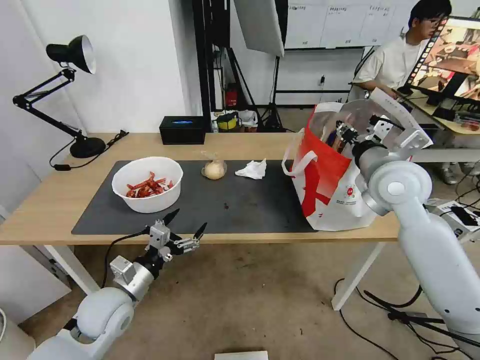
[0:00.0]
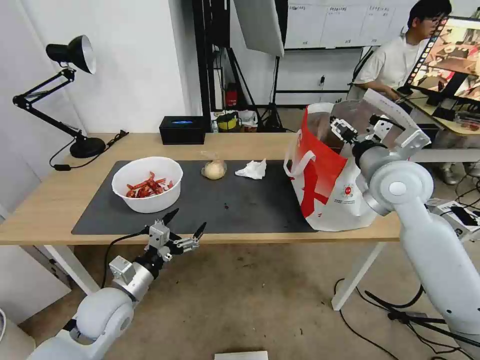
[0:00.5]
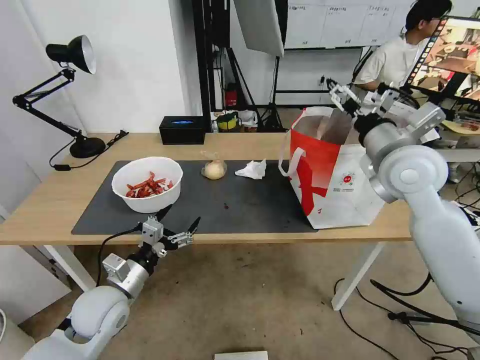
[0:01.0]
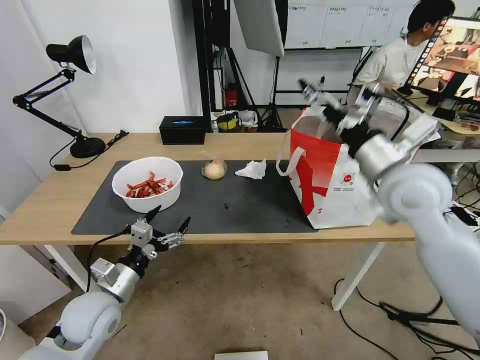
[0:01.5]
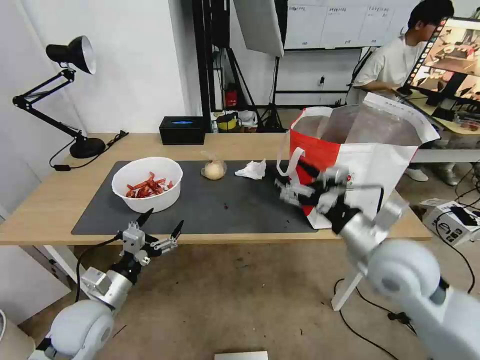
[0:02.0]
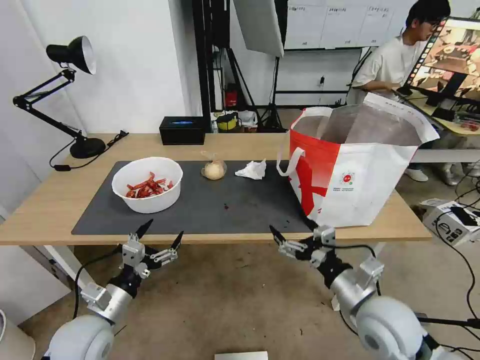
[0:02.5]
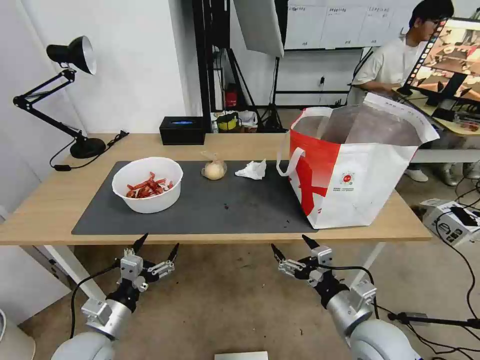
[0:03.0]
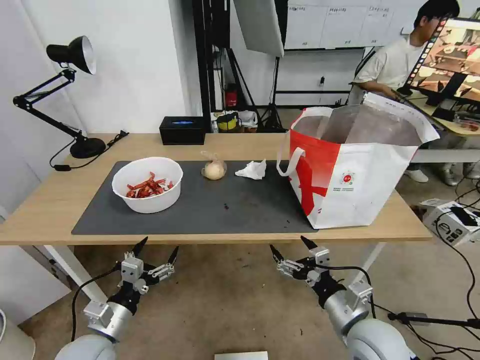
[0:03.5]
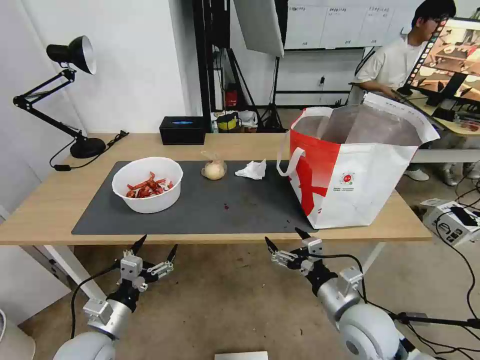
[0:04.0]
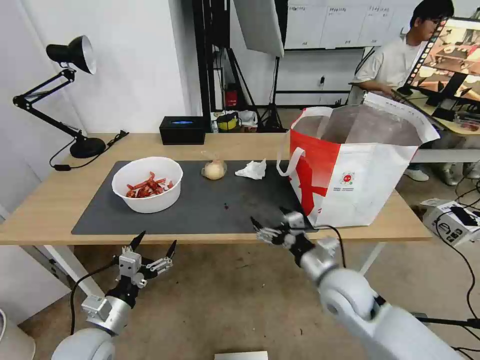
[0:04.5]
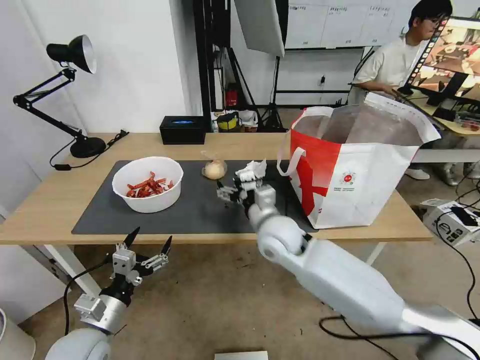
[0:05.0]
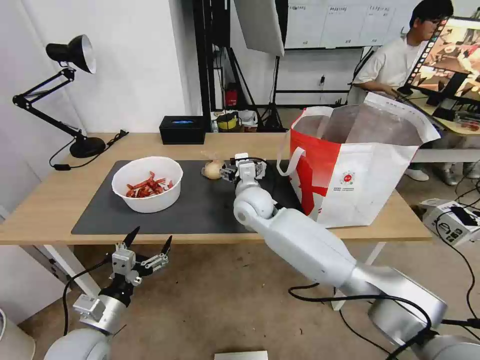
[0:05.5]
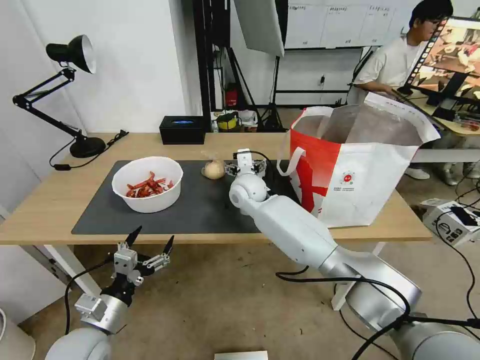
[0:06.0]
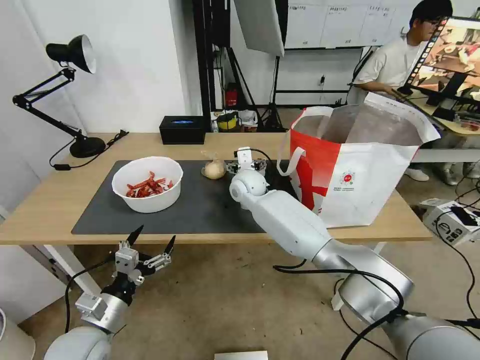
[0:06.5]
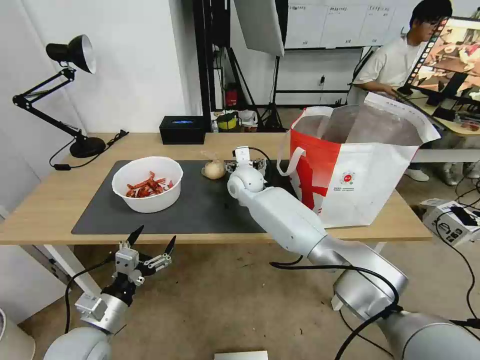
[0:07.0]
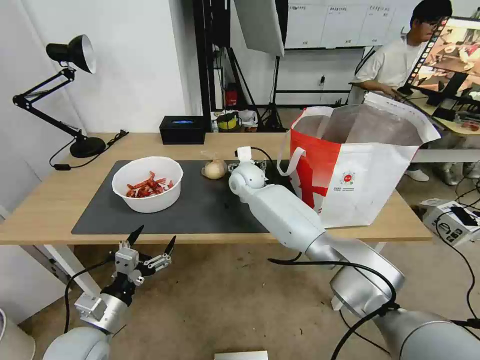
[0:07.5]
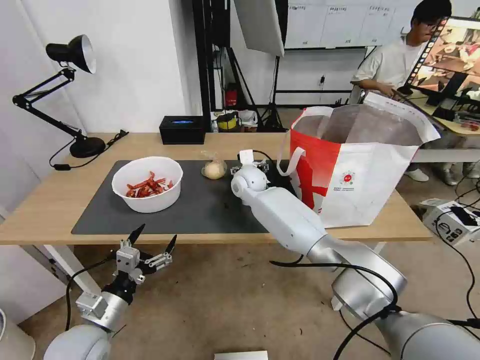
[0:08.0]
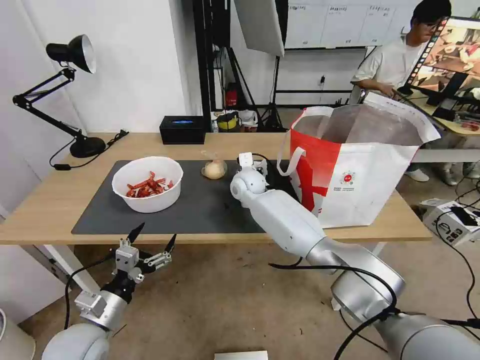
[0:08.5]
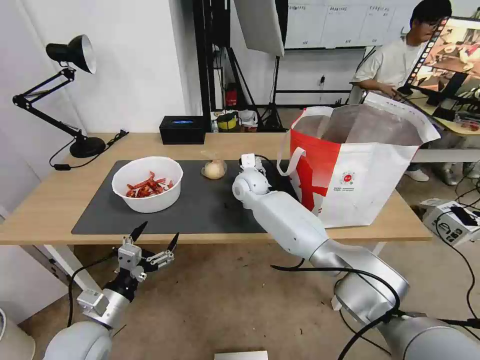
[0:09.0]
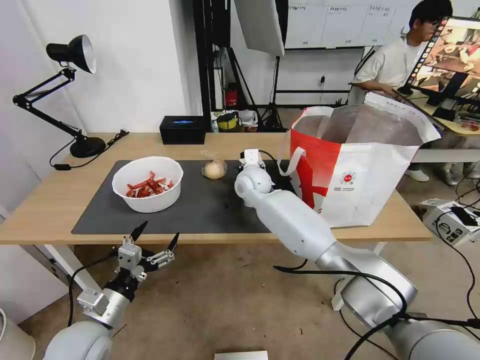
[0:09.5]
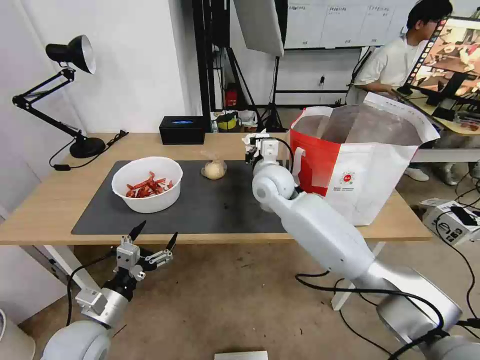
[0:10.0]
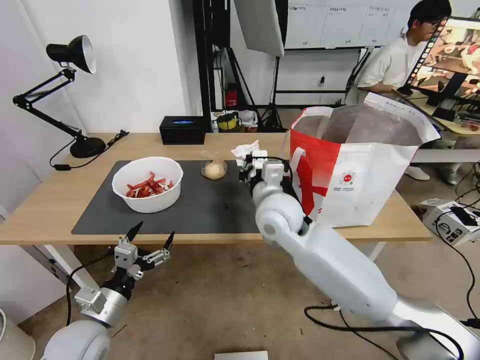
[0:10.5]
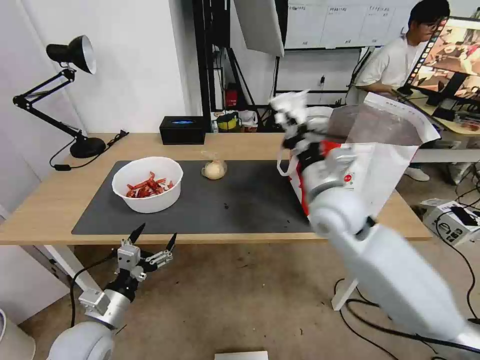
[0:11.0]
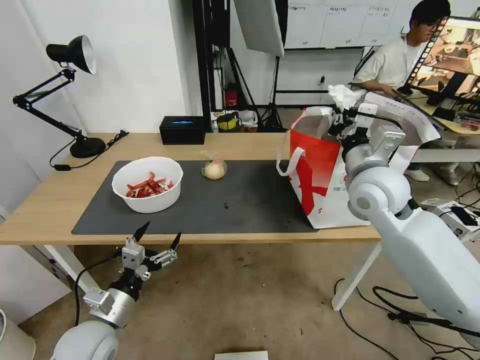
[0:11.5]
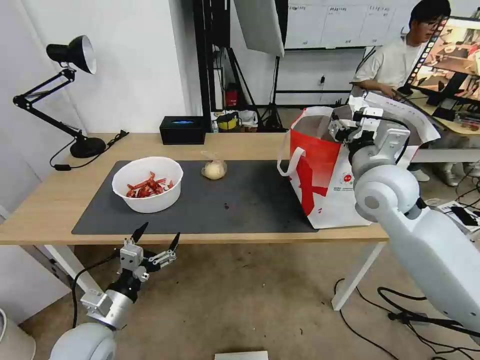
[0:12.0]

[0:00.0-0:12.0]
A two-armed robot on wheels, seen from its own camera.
Task of the whole recording: Pick up the trash from the table and place it into the takeout bag.
0:00.0 to 0:02.0: The right gripper shifts about 15 cm backward and downward, and opens its fingers.
0:02.0 to 0:04.0: The left gripper shifts by roughly 5 cm. Meanwhile the right gripper shifts about 15 cm downward and backward.
0:04.0 to 0:06.0: The right gripper goes about 40 cm forward and to the left.
0:06.0 to 0:08.0: The right gripper moves forward, roughly 5 cm.
0:08.0 to 0:10.0: The right gripper is displaced backward and upward by about 10 cm, and closes up.
0:10.0 to 0:12.0: The right gripper goes about 20 cm to the right, backward and upward, and opens.

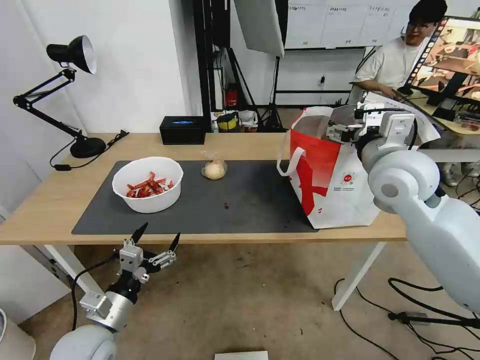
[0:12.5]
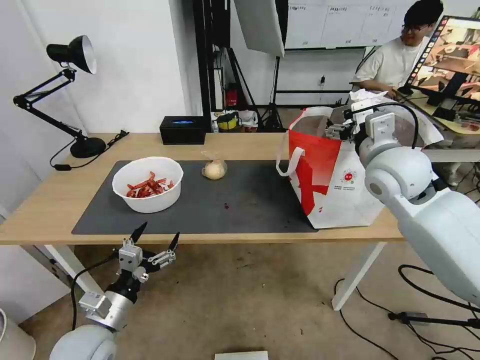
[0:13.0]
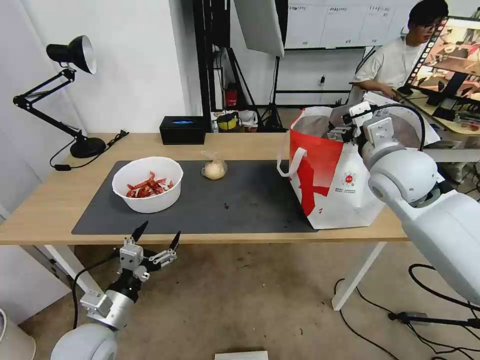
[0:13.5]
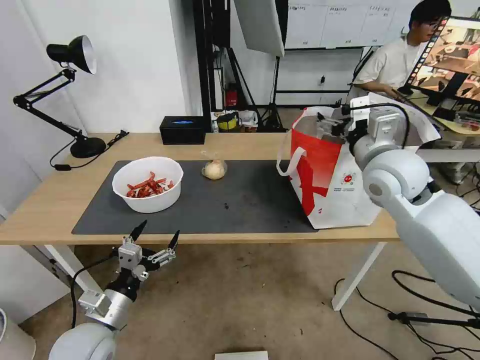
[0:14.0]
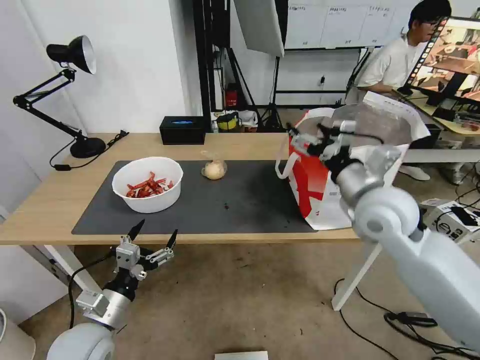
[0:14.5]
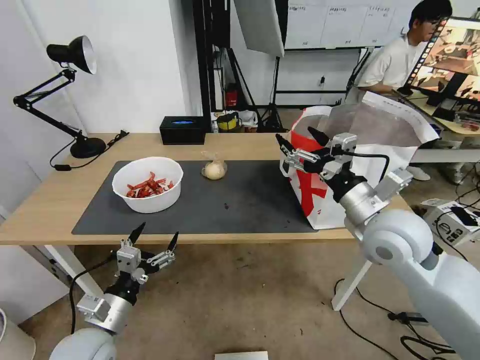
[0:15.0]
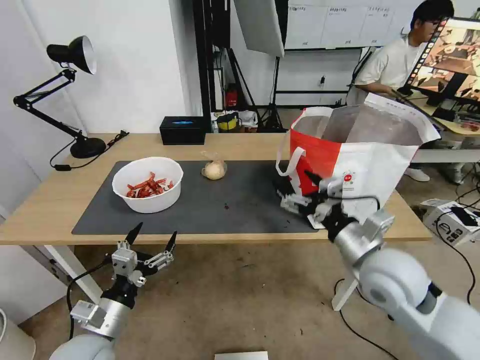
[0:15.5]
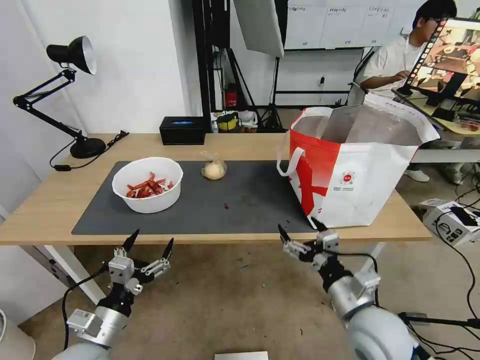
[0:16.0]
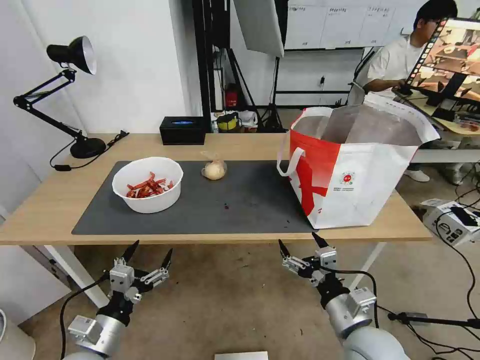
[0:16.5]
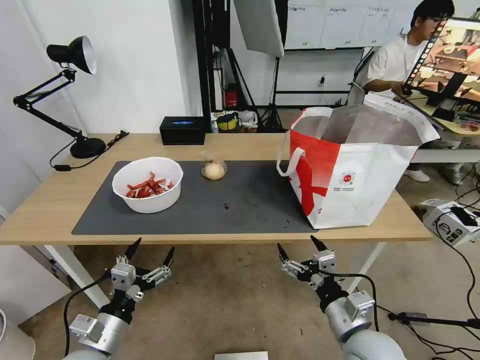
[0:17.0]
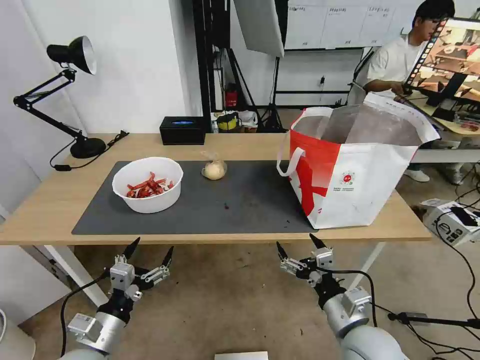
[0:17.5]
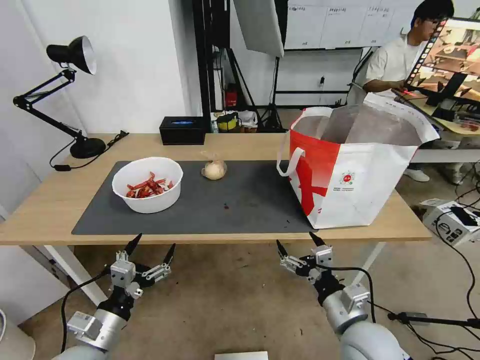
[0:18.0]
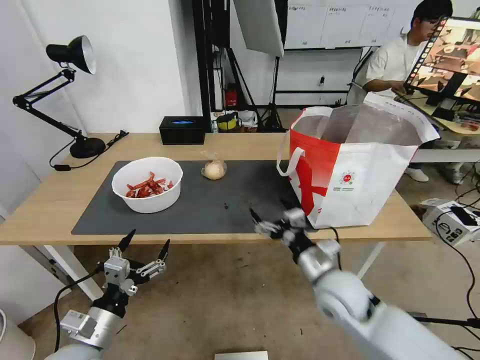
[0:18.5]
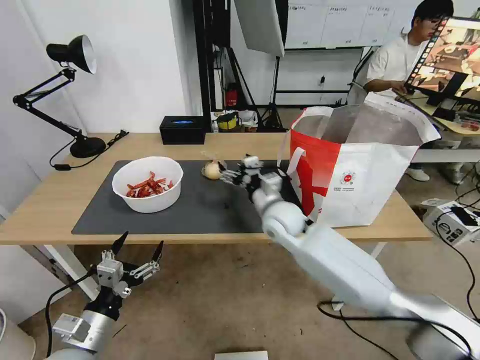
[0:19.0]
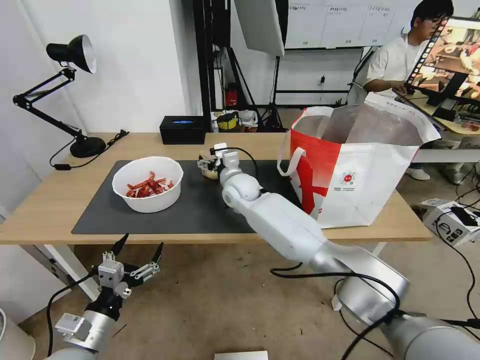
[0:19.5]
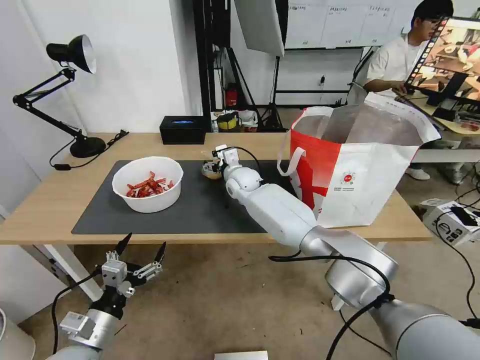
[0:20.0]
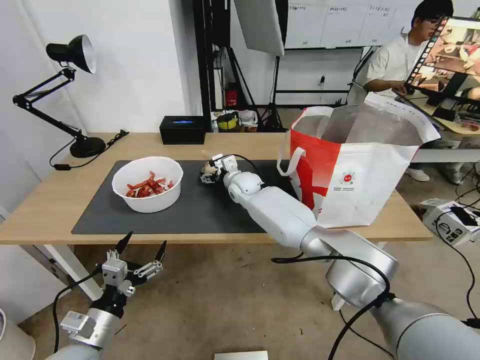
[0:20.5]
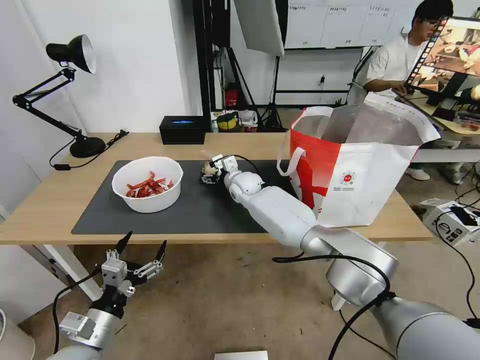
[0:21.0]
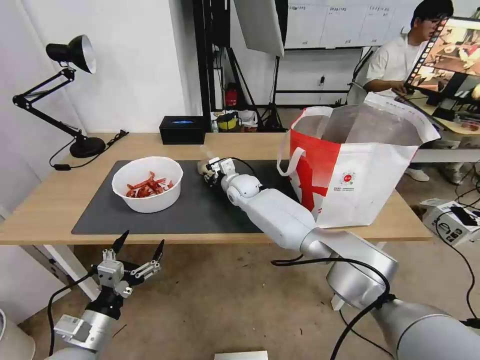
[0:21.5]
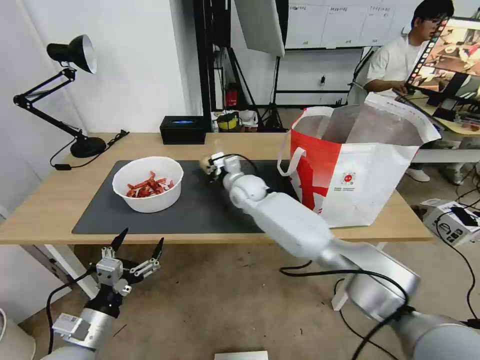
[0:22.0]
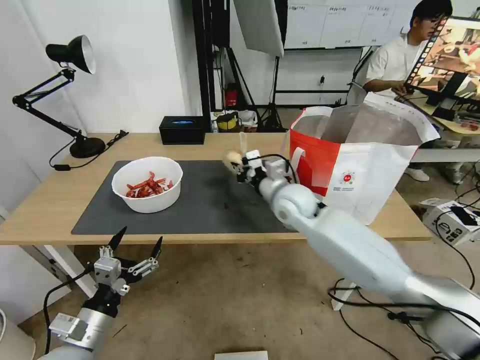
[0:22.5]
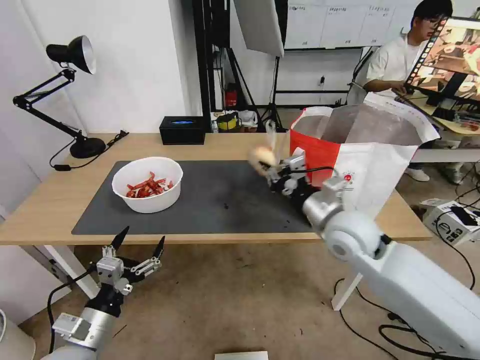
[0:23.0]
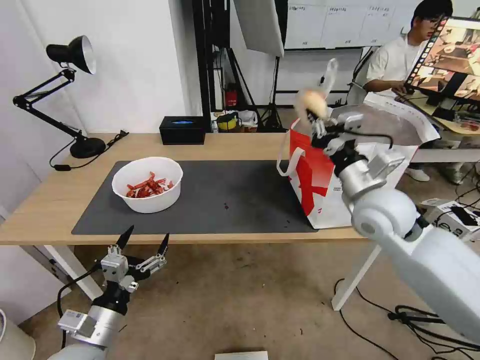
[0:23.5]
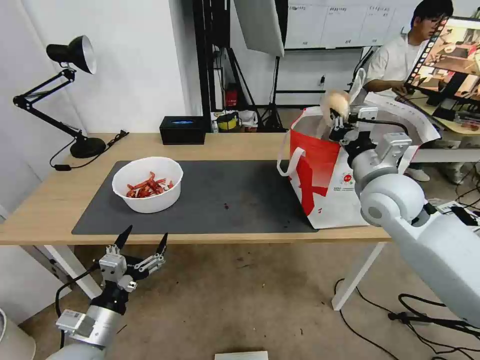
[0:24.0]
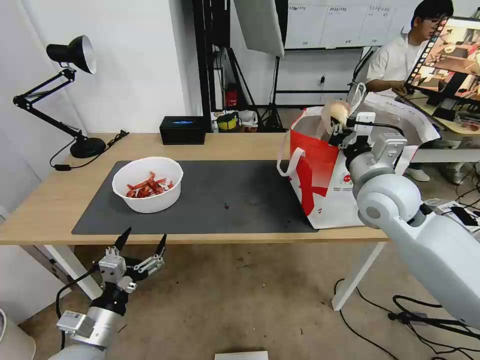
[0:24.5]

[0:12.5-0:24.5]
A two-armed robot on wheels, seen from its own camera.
Task of the whole recording: Pick up the trash from the table and place it into the takeout bag.
0:12.5 to 0:14.5: The right gripper is displaced downward by some 5 cm.
0:14.5 to 0:16.5: The right gripper is displaced backward and downward by about 25 cm.
0:16.5 to 0:18.5: The right gripper heads forward, covering some 10 cm.
0:18.5 to 0:20.5: The right gripper travels forward and to the left by approximately 40 cm.
0:20.5 to 0:22.5: The right gripper heads backward, to the right and upward, covering some 20 cm, and closes.
0:22.5 to 0:24.5: The right gripper moves to the right, upward and backward, about 20 cm.

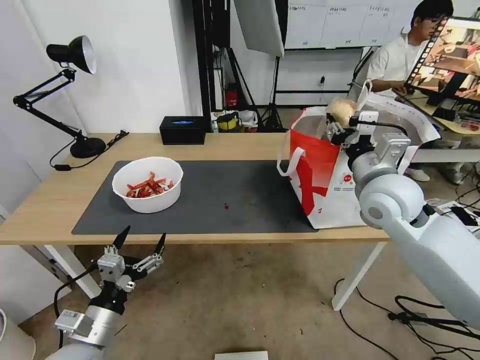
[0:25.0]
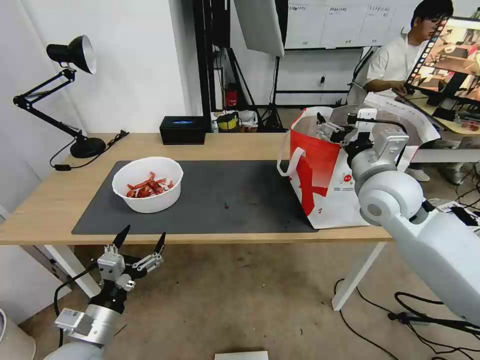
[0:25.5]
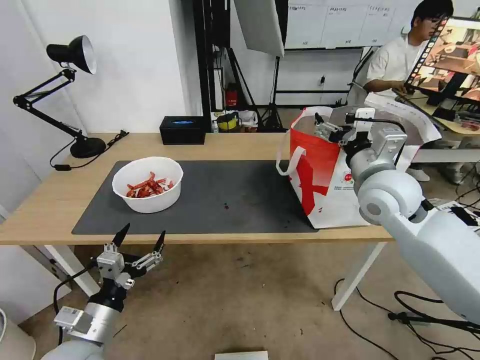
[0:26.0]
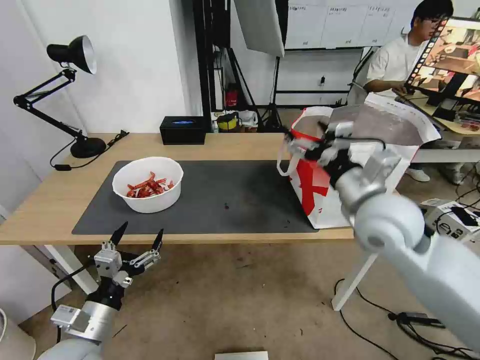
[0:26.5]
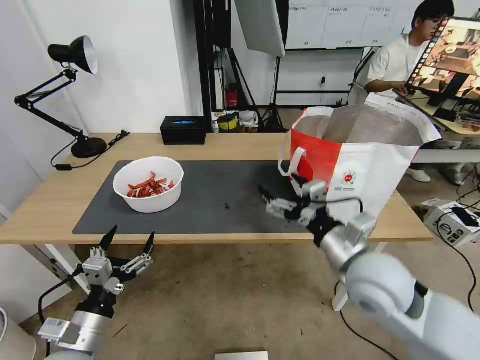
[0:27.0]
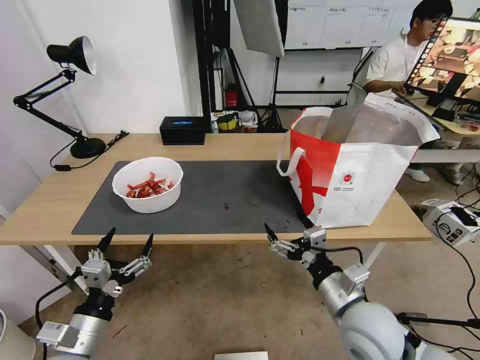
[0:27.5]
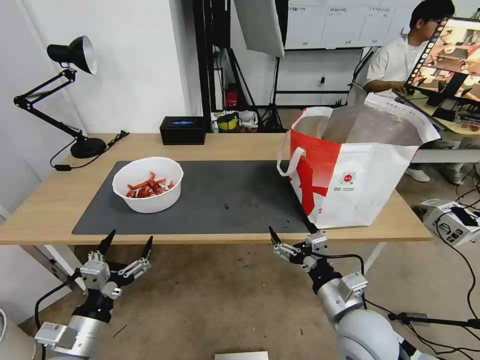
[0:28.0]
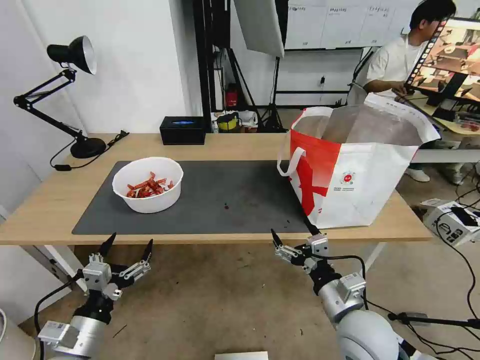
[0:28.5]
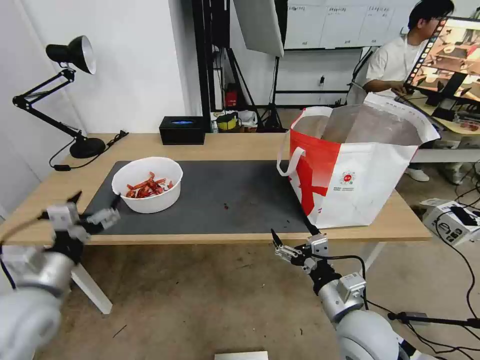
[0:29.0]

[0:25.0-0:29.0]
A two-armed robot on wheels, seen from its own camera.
Task of the whole recording: Pick up the trash from the table and place it into the takeout bag.
0:25.0 to 0:27.0: The right gripper shifts approximately 15 cm backward and downward, and opens up.
0:27.0 to 0:29.0: The left gripper travels upward, forward and to the left by some 15 cm; the right gripper travels downward and backward by some 10 cm.
